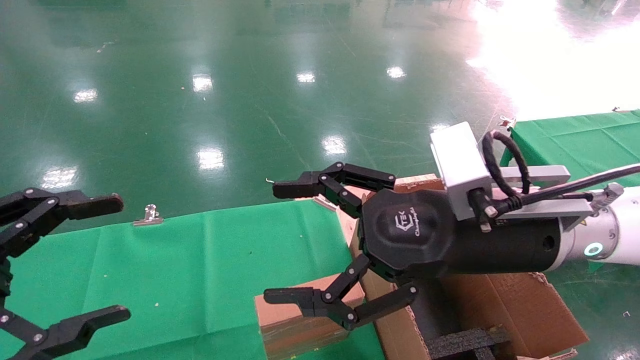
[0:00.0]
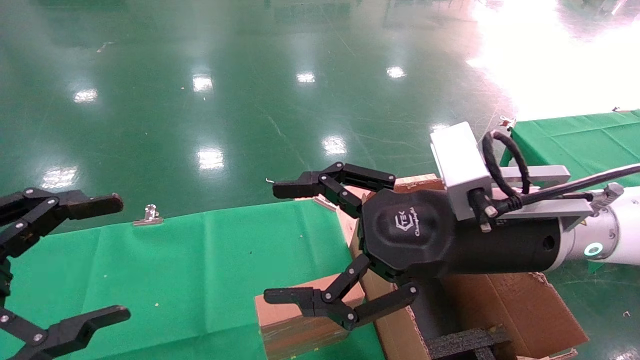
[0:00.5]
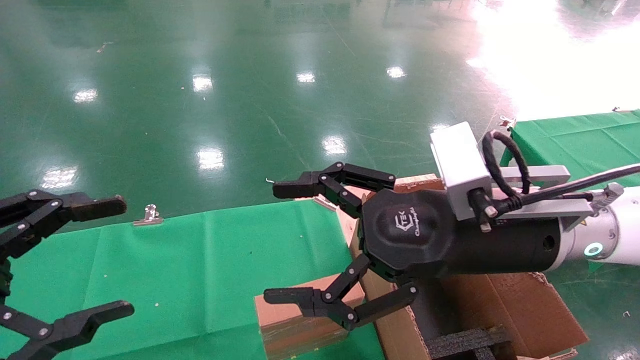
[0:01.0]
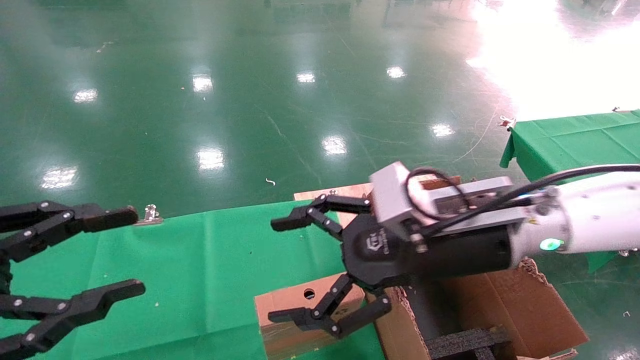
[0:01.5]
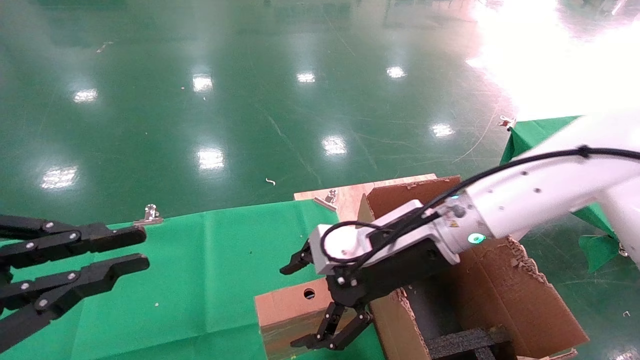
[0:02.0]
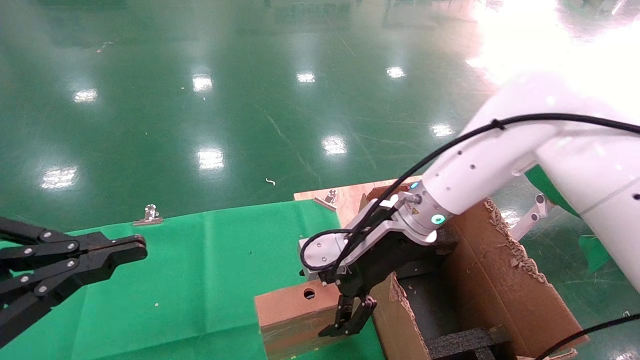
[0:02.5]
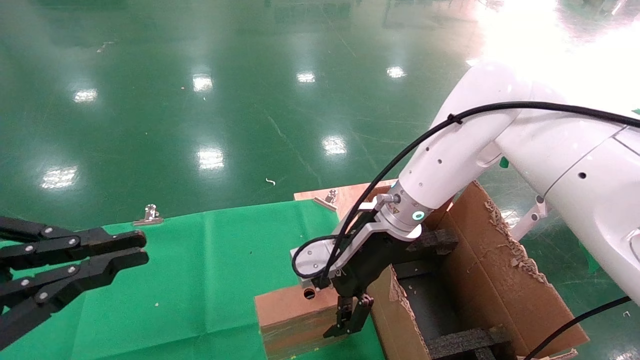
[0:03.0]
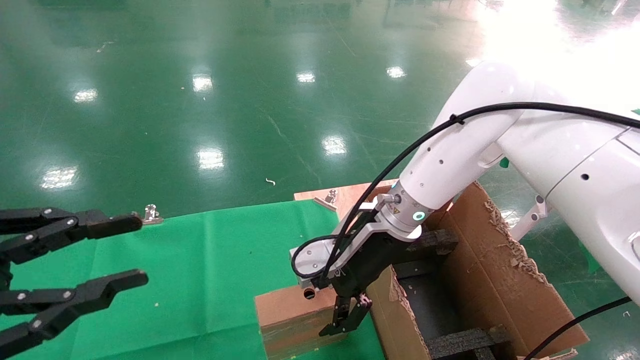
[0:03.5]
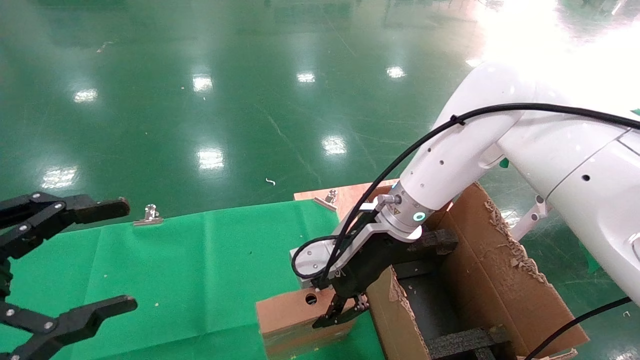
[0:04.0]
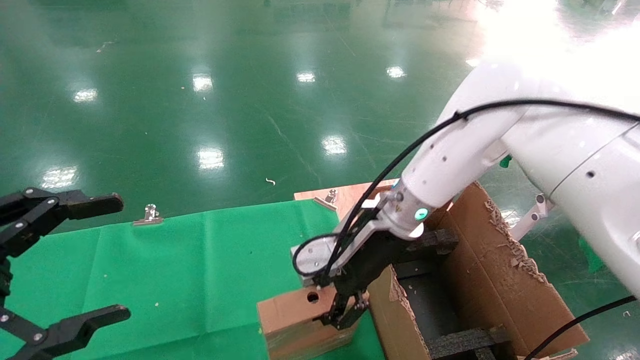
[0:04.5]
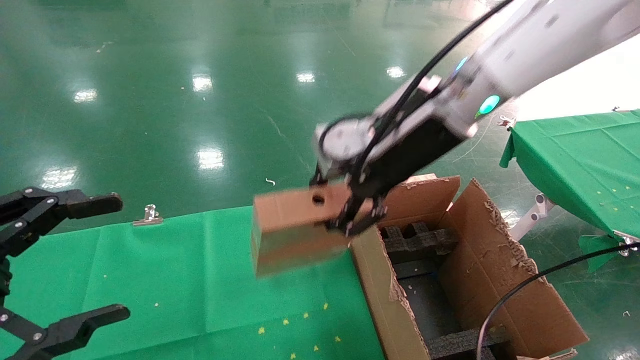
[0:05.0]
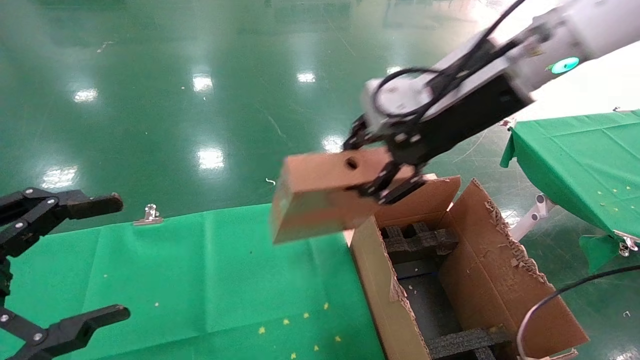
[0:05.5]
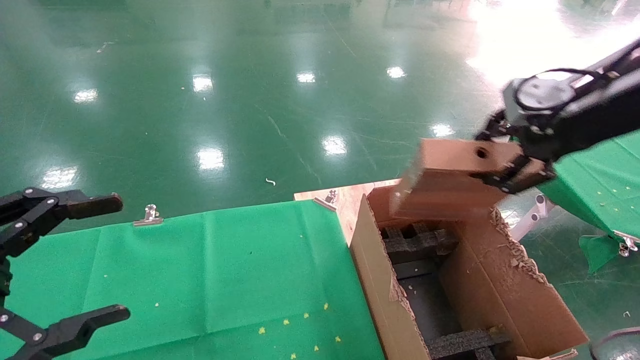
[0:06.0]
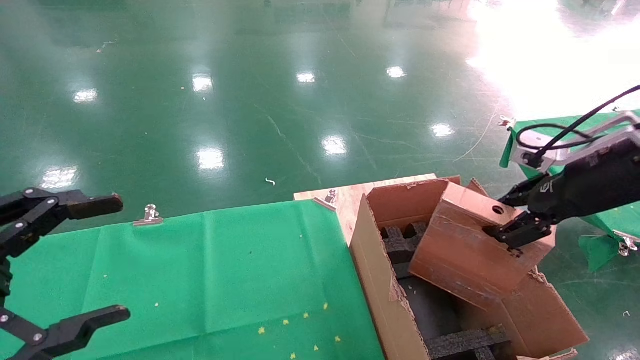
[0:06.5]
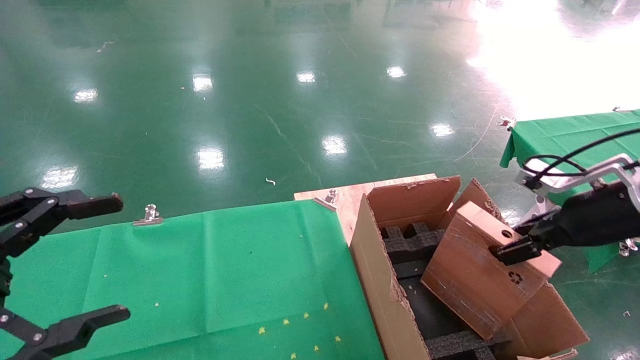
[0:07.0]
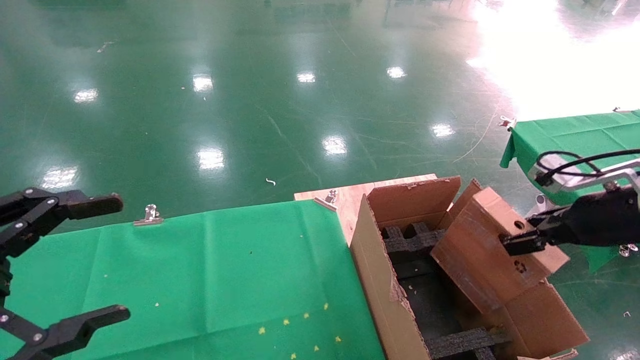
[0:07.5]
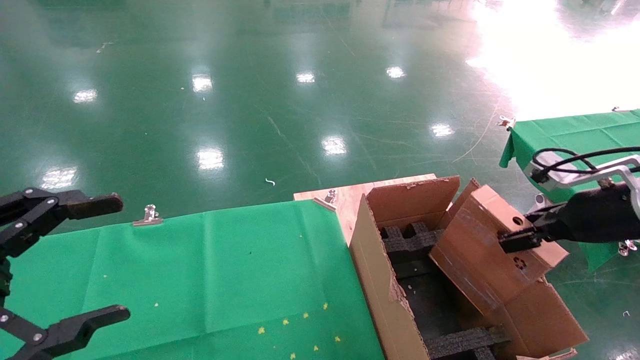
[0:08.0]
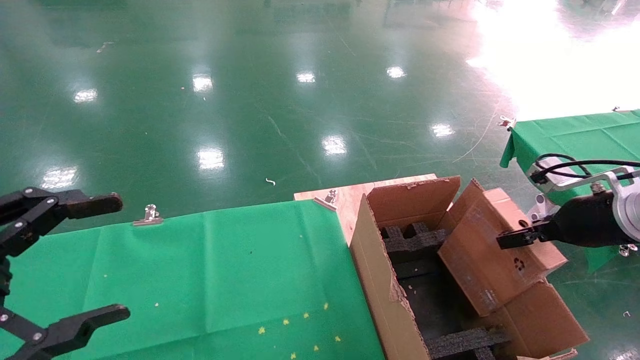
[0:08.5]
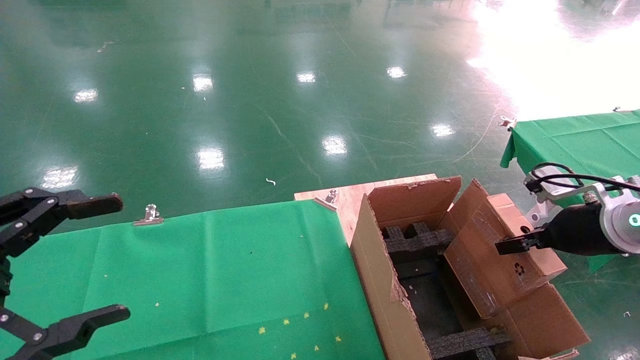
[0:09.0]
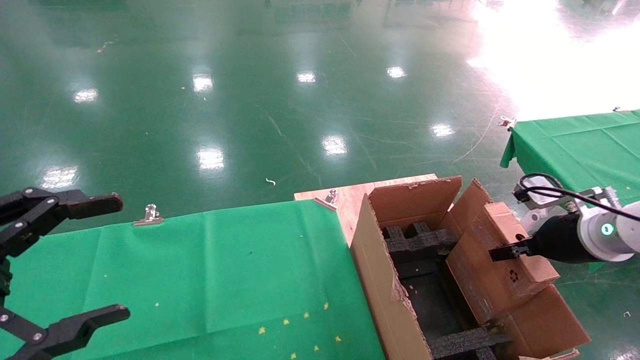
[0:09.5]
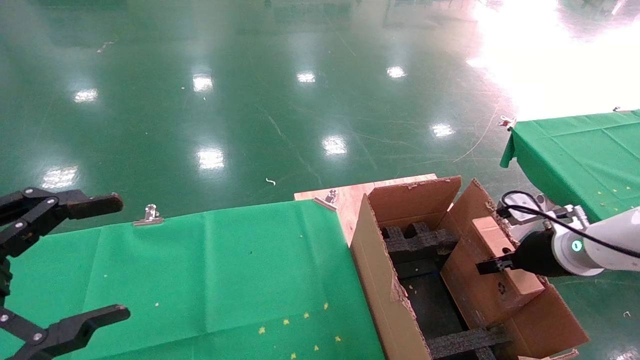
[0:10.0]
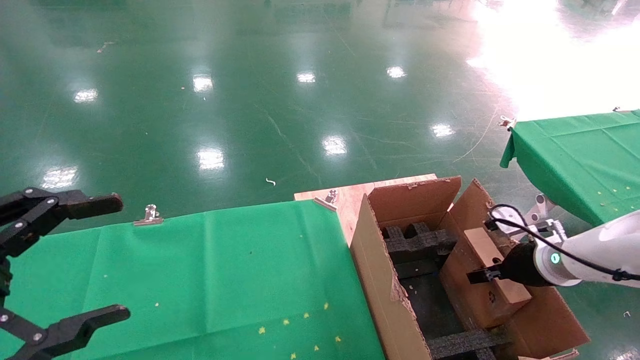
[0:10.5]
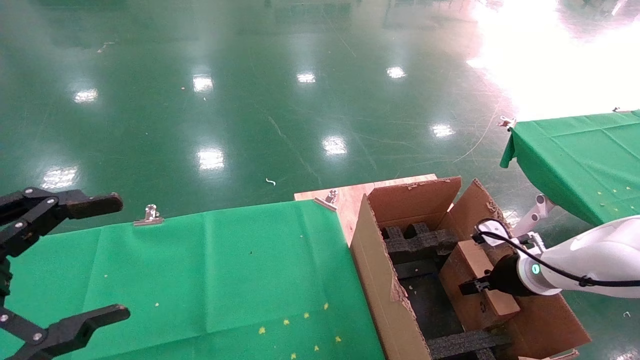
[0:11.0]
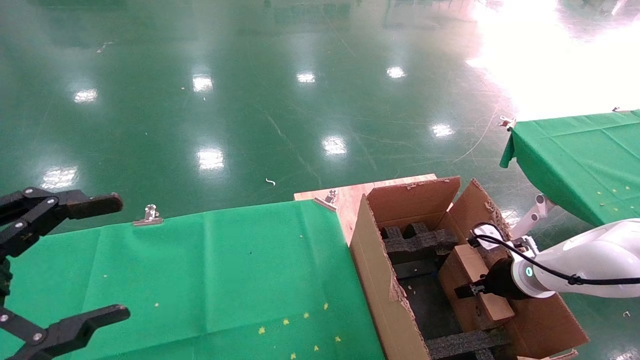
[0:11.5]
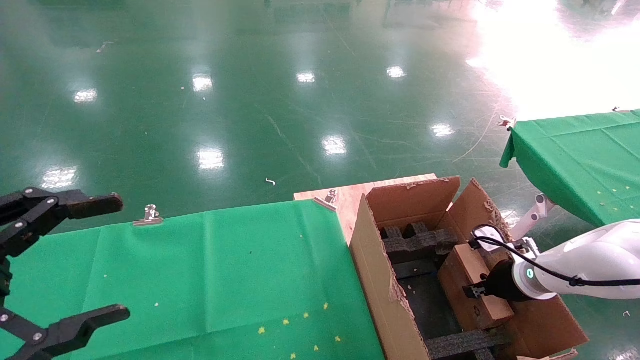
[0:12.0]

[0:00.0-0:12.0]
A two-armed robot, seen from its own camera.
Task of the whole recording: using a robotic arm to pick up a cardboard box and palace it the carton.
Step, 0:01.5 to 0:04.0: Pick up the mouse and the power cord paper box.
0:00.0 to 0:02.0: The left gripper closes its fingers. The right gripper moves forward, roughly 10 cm.
0:02.0 to 0:04.0: The right gripper moves forward, roughly 5 cm, and closes. The left gripper opens up.
0:04.0 to 0:06.0: The right gripper is displaced to the right, upward and backward by about 30 cm, and closes.
0:06.0 to 0:08.0: The right gripper shifts about 15 cm downward and to the right.
0:08.0 to 0:10.0: The right gripper goes about 10 cm downward and forward.
0:10.0 to 0:12.0: The right gripper heads downward, covering about 10 cm.

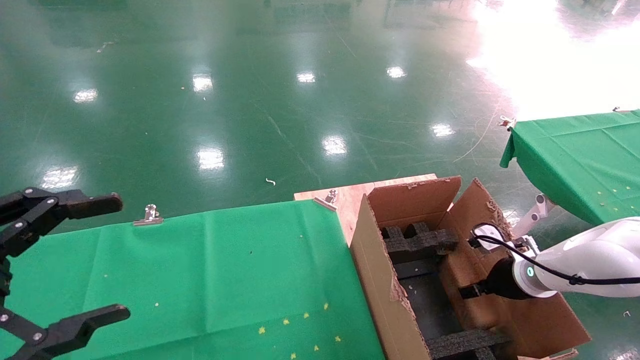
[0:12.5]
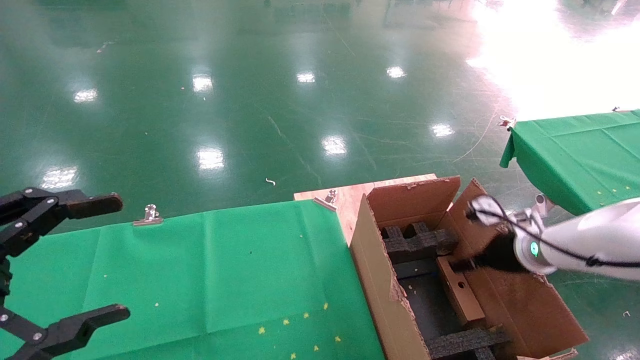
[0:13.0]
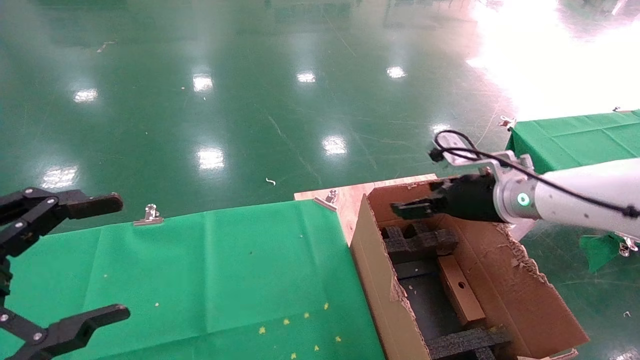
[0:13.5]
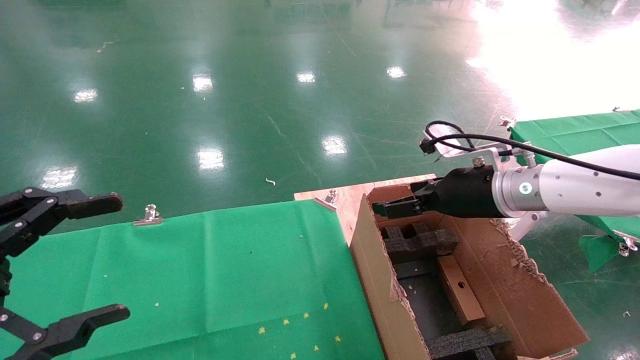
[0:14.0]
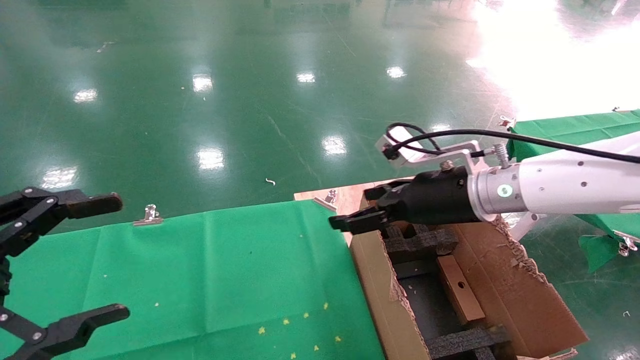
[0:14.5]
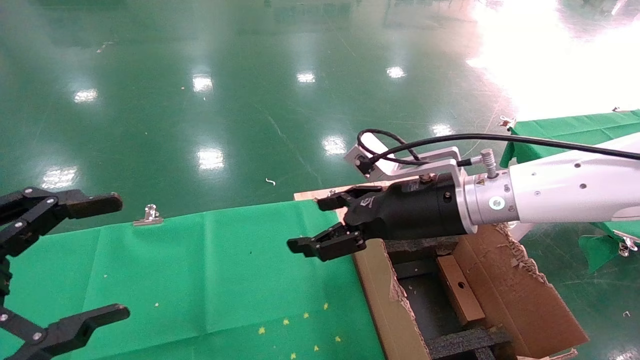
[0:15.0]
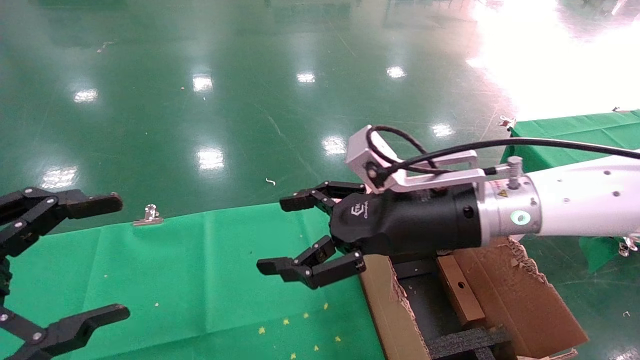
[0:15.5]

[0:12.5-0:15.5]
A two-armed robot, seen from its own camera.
Task of the whole recording: using a robotic arm to pick up a cardboard box and palace it the carton.
0:12.5 to 0:14.0: The right gripper shifts roughly 20 cm upward and to the left, and opens.
0:14.0 to 0:15.5: The right gripper goes some 10 cm to the left and backward.
